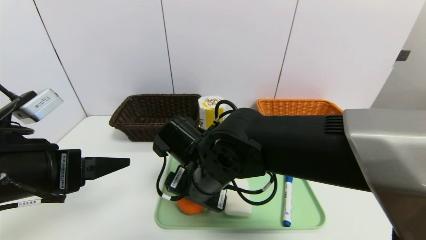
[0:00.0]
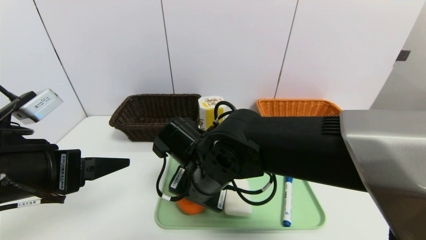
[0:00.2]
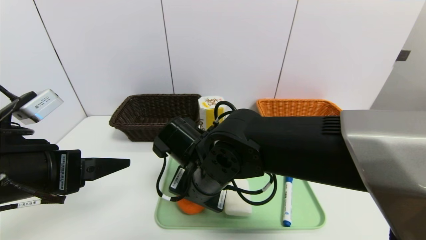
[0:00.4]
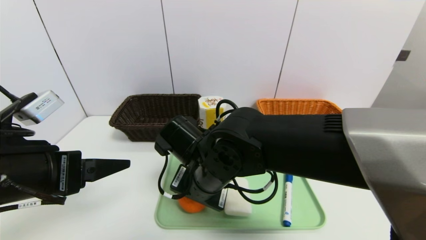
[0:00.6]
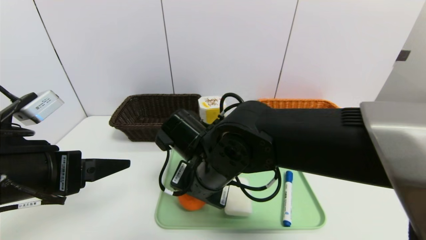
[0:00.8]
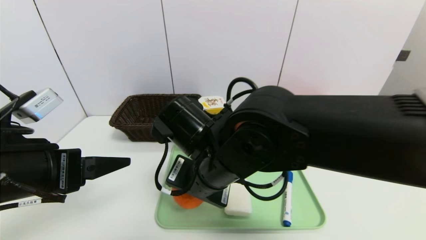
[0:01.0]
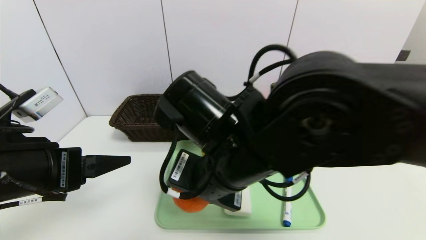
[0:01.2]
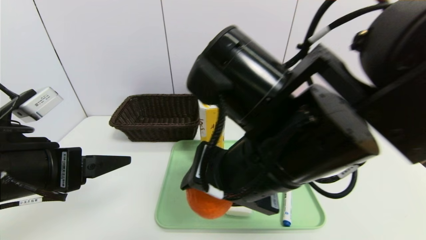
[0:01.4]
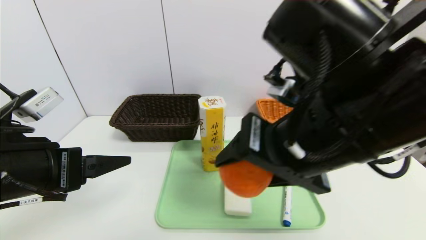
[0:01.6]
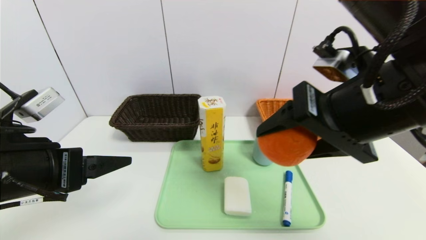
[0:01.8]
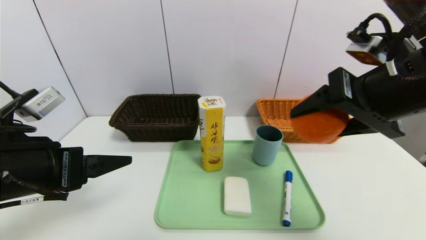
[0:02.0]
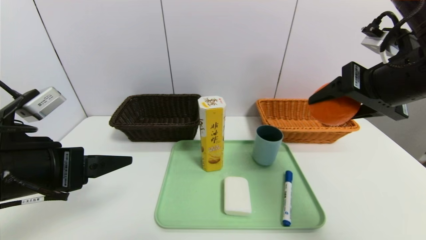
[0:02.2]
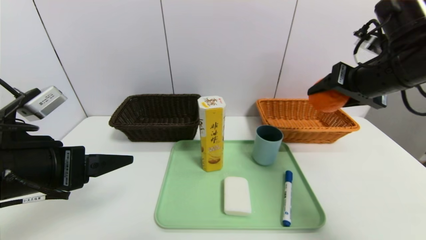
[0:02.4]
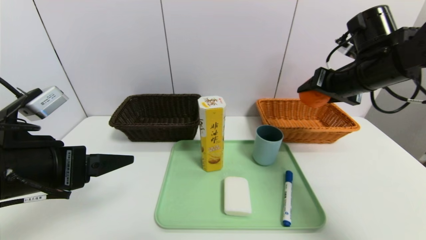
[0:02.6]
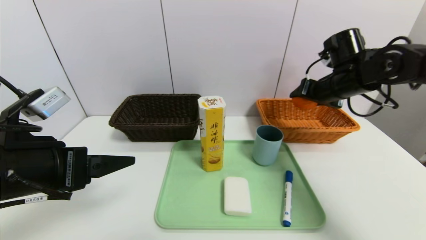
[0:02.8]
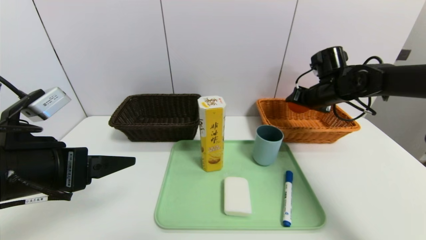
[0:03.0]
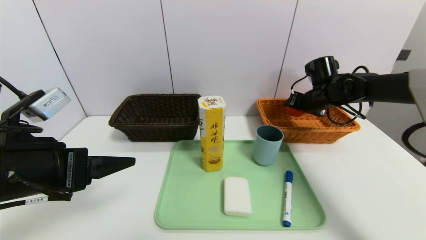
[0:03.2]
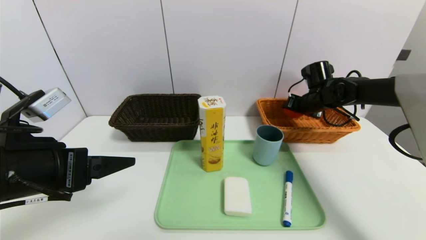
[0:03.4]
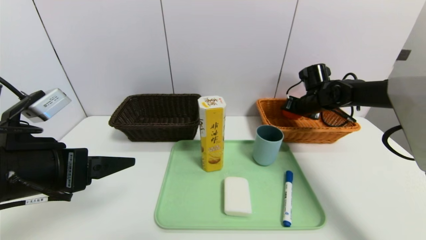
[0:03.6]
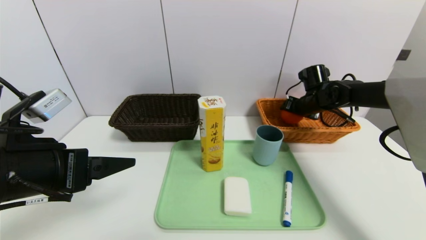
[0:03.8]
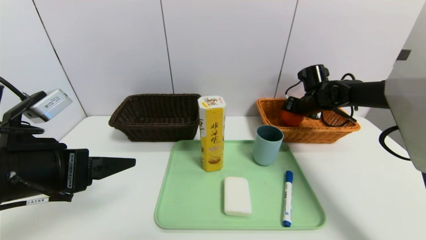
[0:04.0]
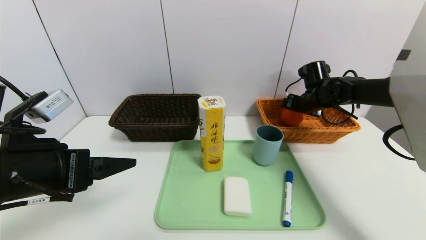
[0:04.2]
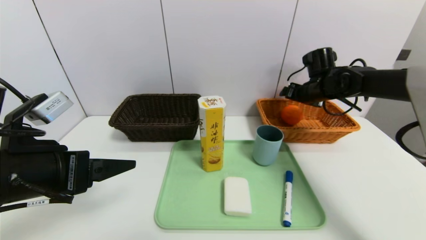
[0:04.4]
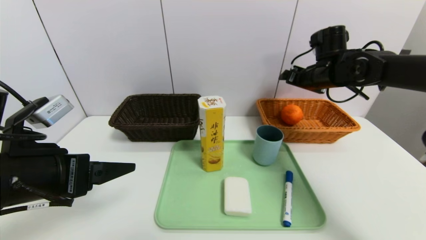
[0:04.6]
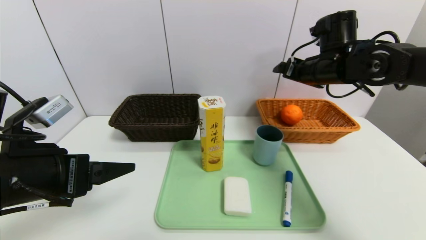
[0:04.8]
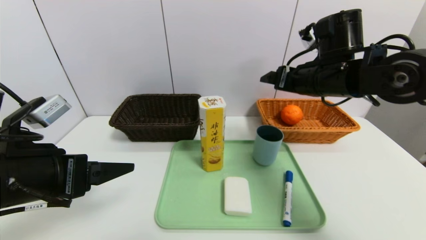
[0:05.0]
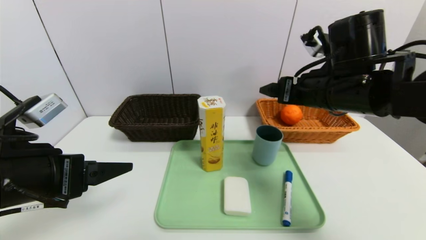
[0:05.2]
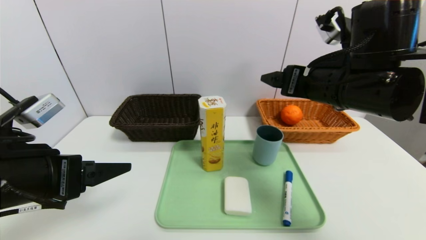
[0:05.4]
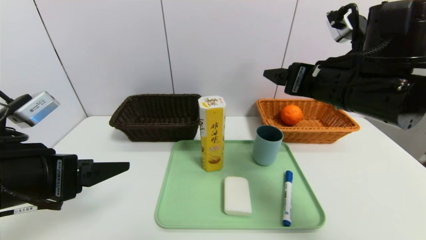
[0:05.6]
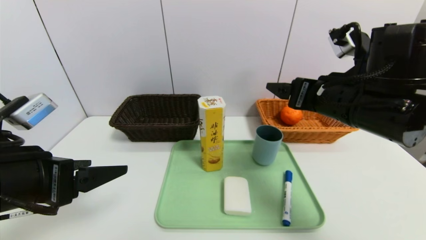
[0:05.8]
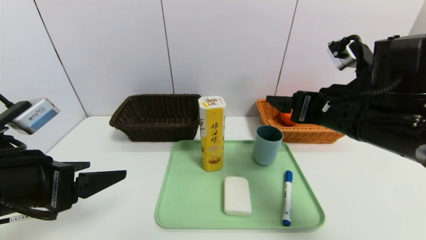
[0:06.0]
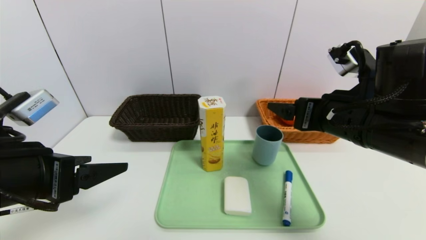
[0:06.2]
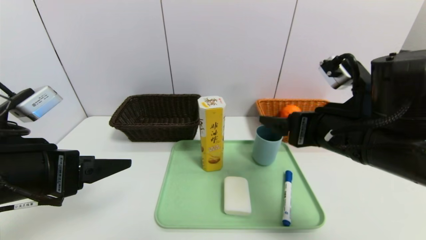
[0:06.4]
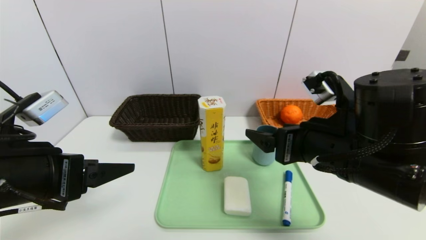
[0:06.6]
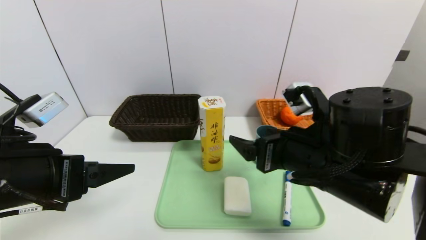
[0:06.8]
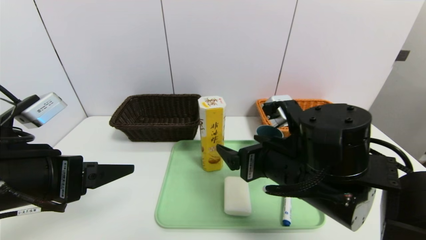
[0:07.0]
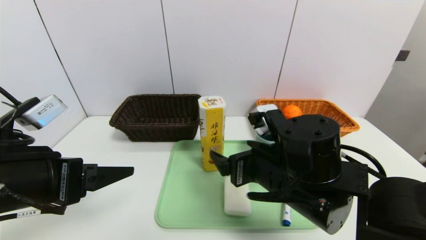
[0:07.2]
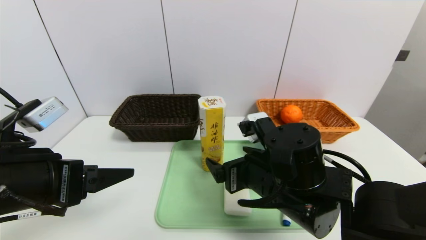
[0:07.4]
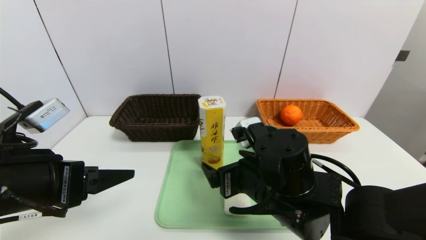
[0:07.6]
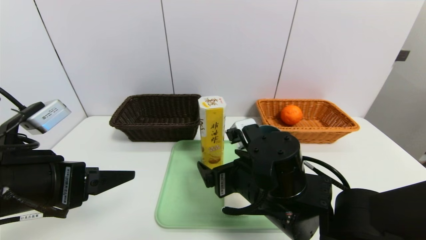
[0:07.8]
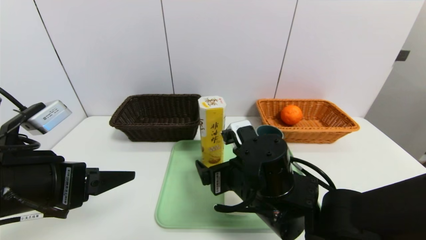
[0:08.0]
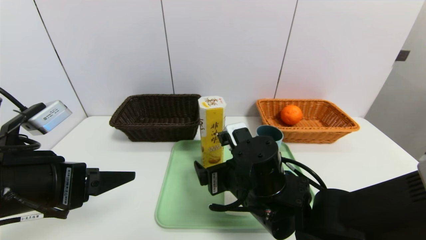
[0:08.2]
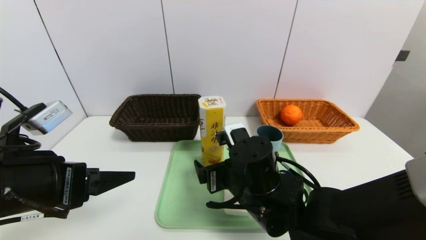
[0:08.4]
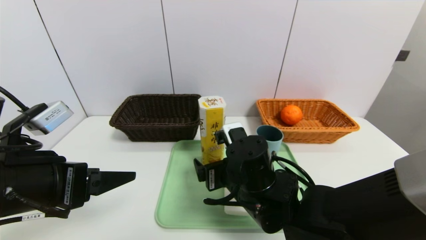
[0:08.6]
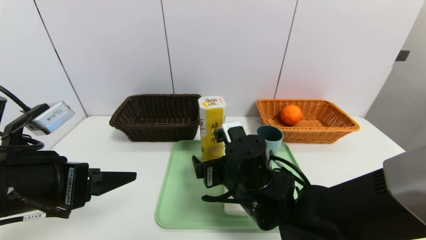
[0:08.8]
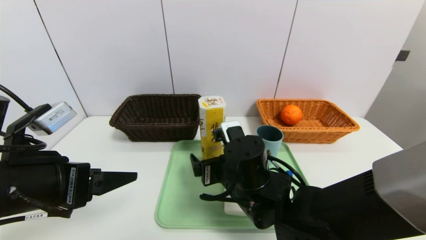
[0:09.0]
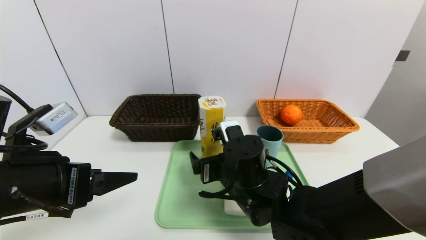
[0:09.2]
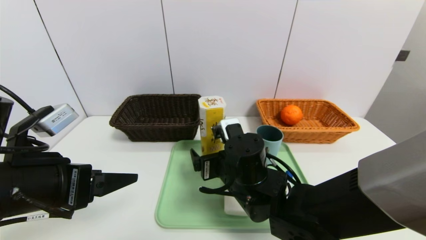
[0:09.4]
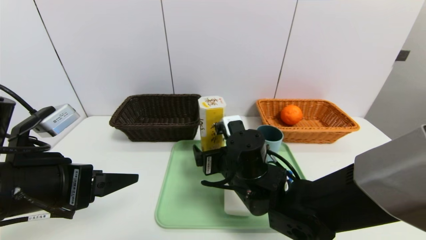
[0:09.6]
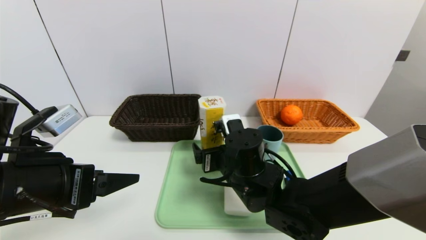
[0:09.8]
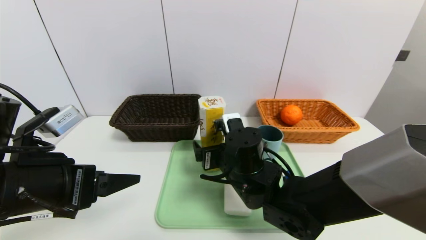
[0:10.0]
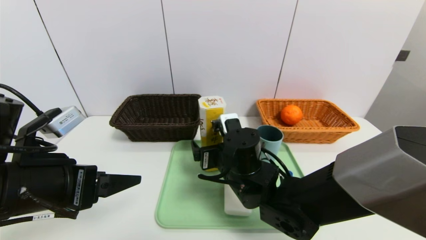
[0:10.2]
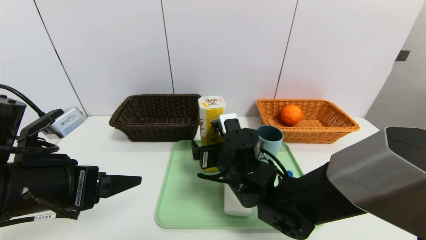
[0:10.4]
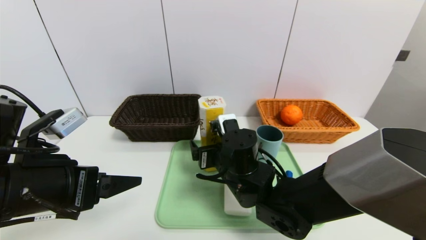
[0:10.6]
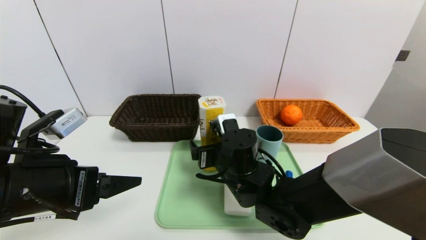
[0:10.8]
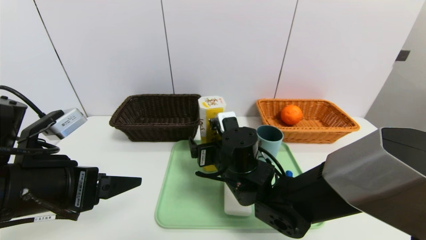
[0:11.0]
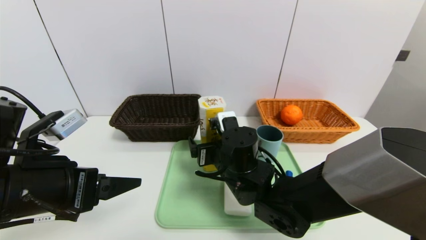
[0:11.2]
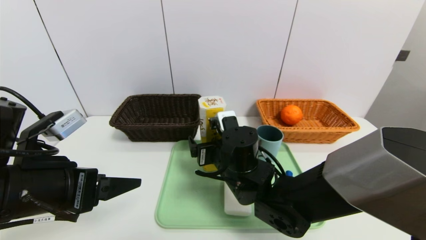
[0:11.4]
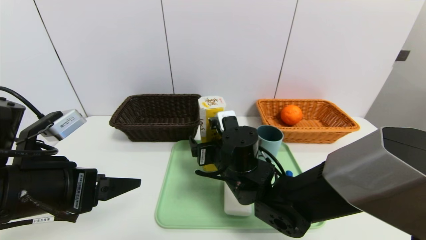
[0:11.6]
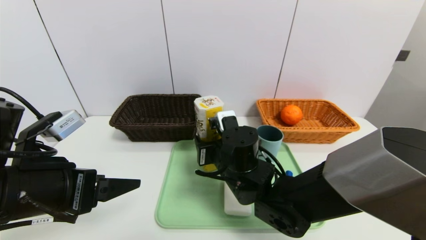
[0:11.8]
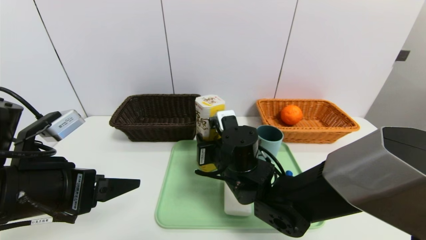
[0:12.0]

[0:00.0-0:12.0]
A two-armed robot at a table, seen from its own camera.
Task of the whole recording: place the food in the right basket with the right gripper, and place the non food items in the left basket with the left gripper.
Step, 0:00.0 to 0:04.4: Grasp the orange and put it in the right basket.
0:00.0 to 0:01.6: The right gripper goes about 20 cm upward, to the right and backward, and closes its fingers.
0:01.6 to 0:03.0: The right gripper goes roughly 35 cm forward, to the right and downward.
0:03.0 to 0:04.4: The right gripper opens its fingers.
0:04.4 to 0:06.0: The right gripper travels backward by some 25 cm.
0:06.0 to 0:07.6: The right gripper moves to the left and downward, approximately 15 cm.
0:07.6 to 0:09.0: The right gripper ends up approximately 5 cm from where it was.
0:09.0 to 0:10.4: There are only small adjustments of the grippers.
0:10.4 to 0:12.0: The right gripper closes its fingers.

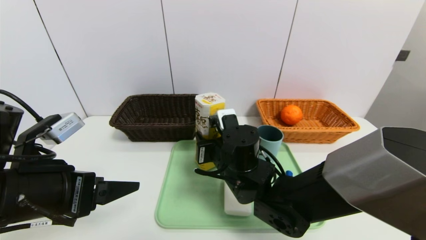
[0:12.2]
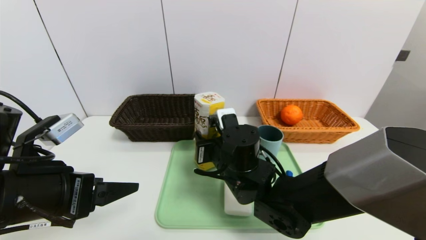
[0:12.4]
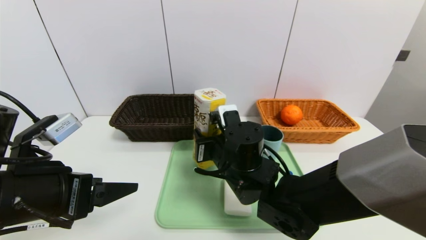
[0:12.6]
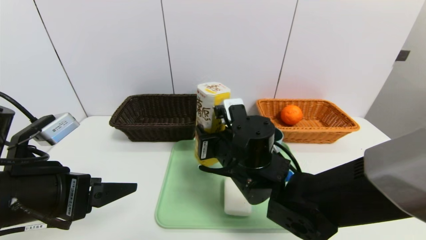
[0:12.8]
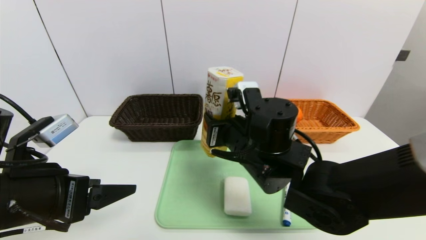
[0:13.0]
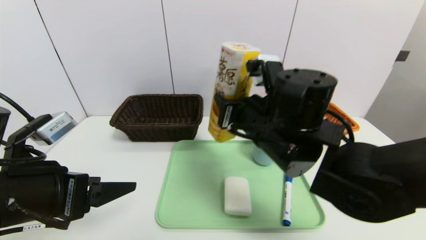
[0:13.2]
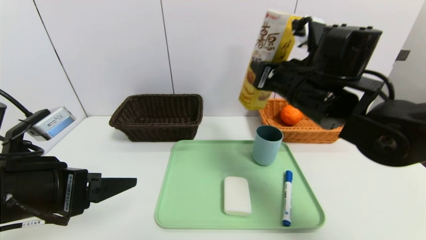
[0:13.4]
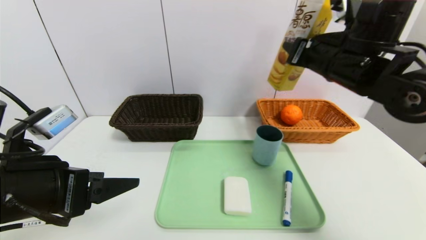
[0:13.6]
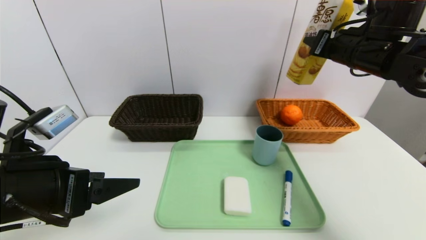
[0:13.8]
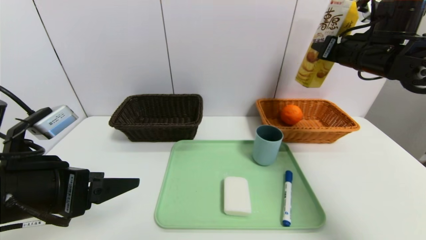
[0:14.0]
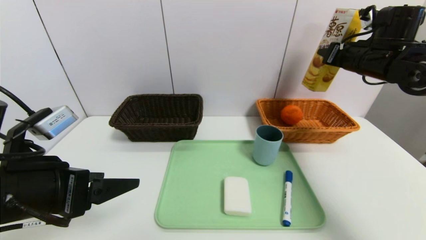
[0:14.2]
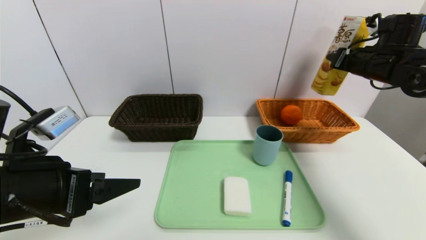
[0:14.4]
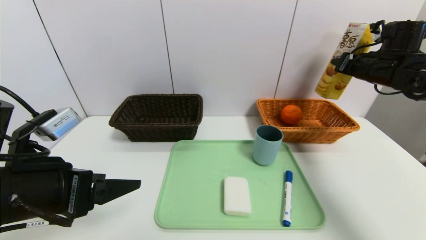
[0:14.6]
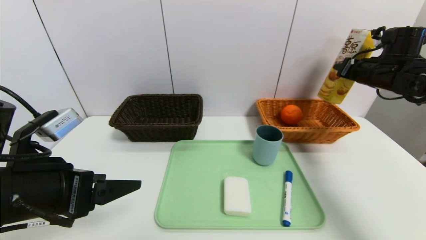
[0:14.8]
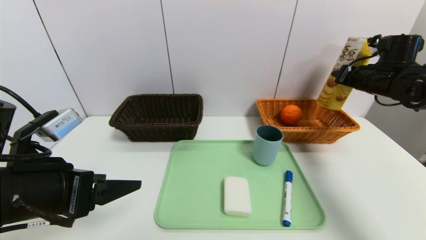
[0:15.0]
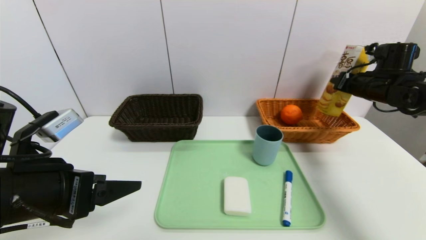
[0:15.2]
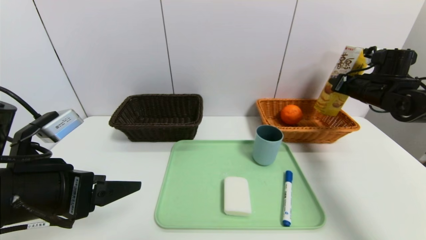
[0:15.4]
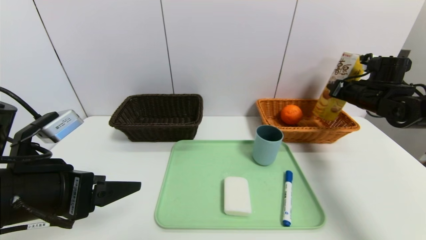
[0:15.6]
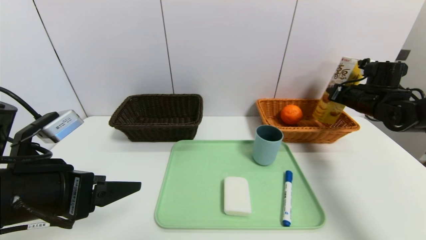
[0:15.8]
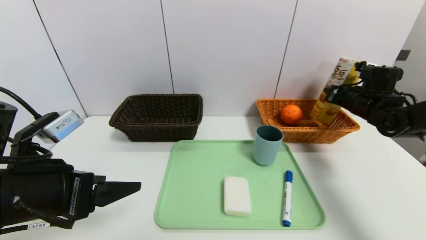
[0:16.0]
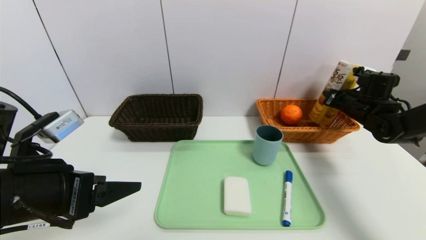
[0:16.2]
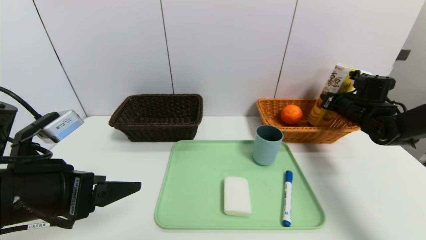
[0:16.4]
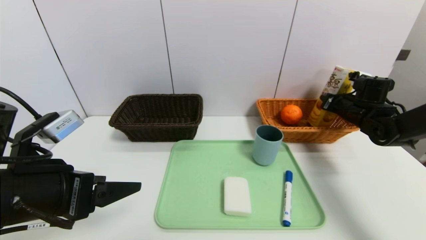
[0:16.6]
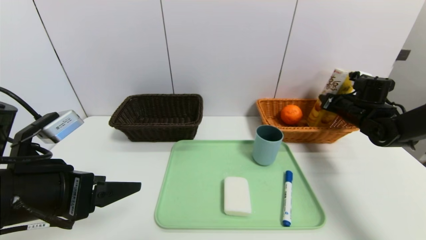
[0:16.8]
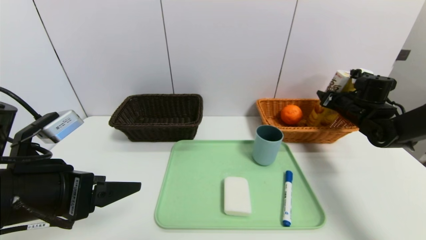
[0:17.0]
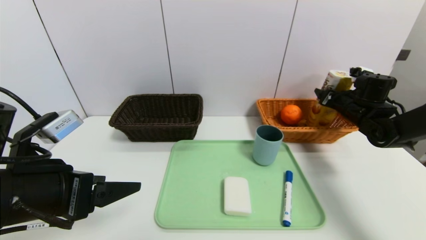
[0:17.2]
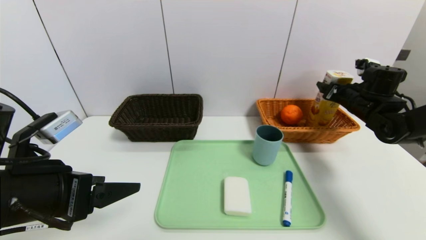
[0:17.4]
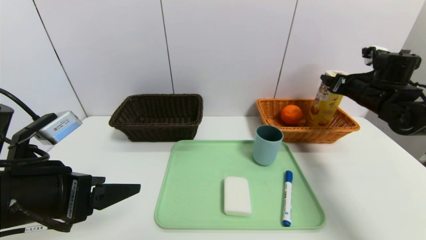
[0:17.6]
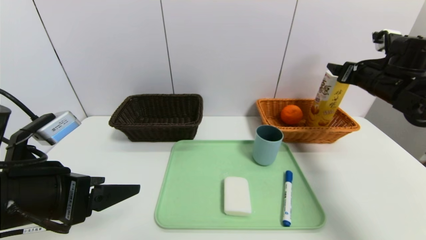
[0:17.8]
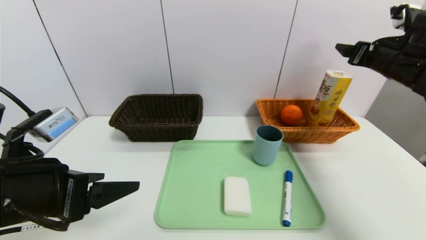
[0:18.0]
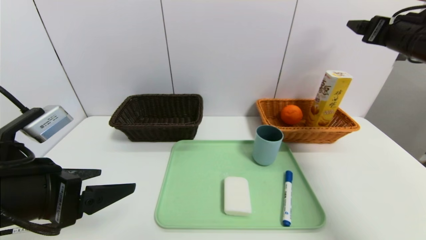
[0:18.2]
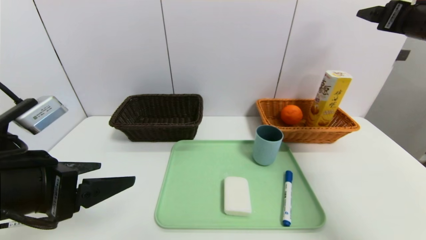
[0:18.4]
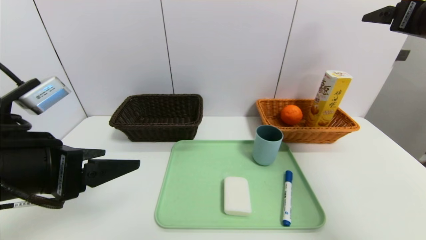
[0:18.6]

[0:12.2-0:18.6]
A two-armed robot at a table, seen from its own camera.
Task of the whole recording: place the food in the right basket with the right gripper, and place the non food items in the left basket with the left gripper.
Step, 0:12.2 to 0:17.8: Grasp the potato chips and put it in the right basket.
0:12.2 to 0:13.8: The right gripper shifts approximately 30 cm to the right and upward.
0:13.8 to 0:15.4: The right gripper goes some 15 cm to the right, downward and forward.
0:15.4 to 0:17.0: The right gripper heads downward, covering roughly 5 cm, and opens.
0:17.0 to 0:18.6: The right gripper goes some 25 cm upward and backward, and opens.
